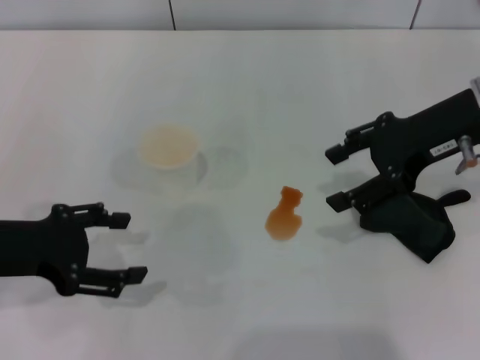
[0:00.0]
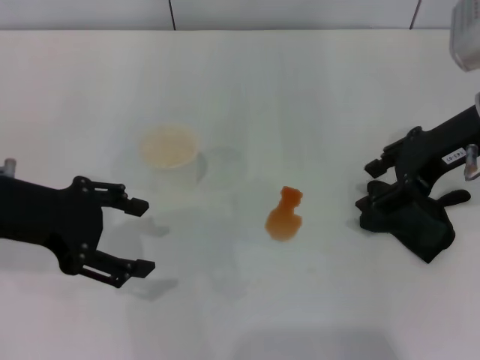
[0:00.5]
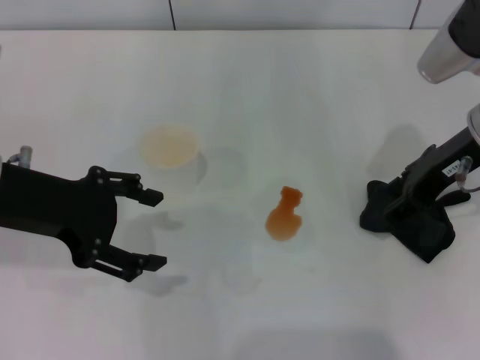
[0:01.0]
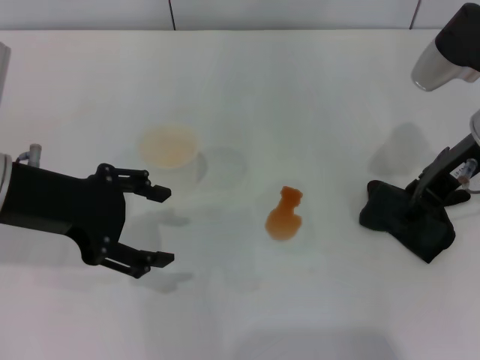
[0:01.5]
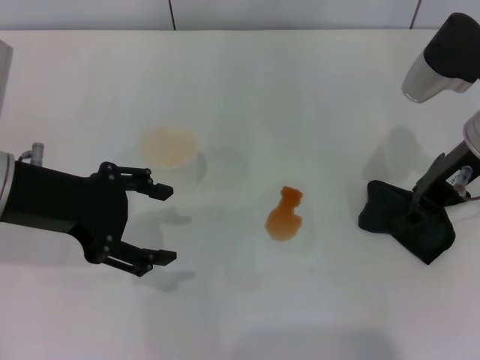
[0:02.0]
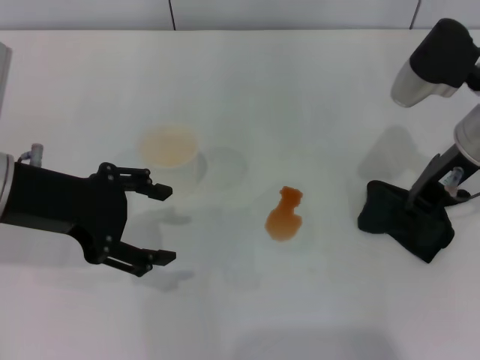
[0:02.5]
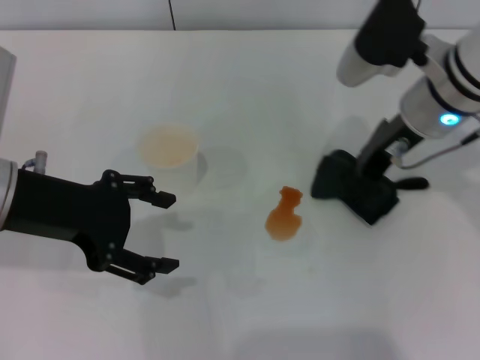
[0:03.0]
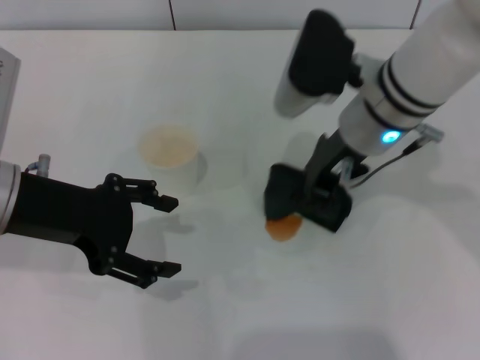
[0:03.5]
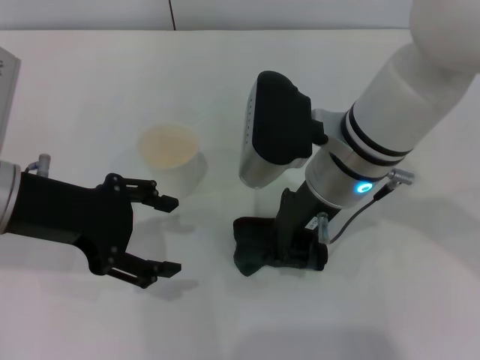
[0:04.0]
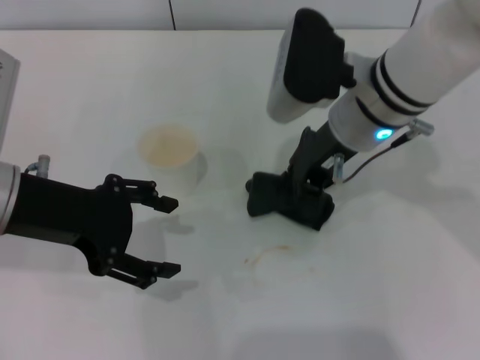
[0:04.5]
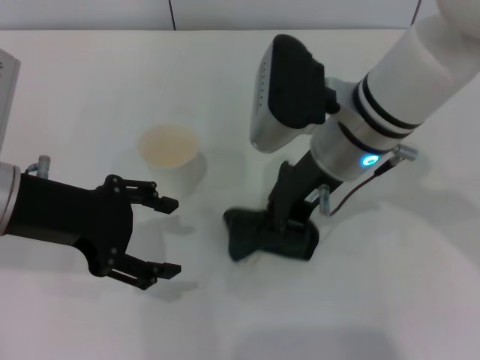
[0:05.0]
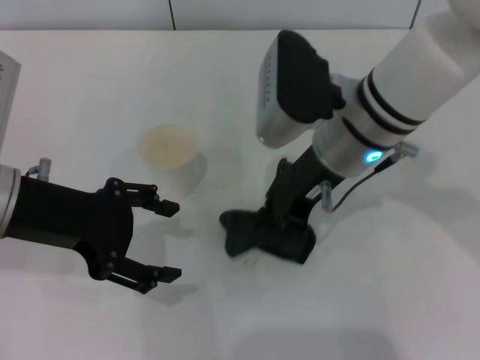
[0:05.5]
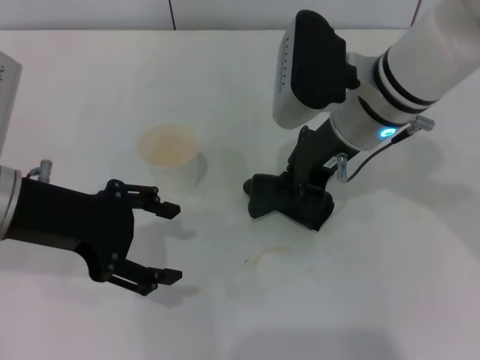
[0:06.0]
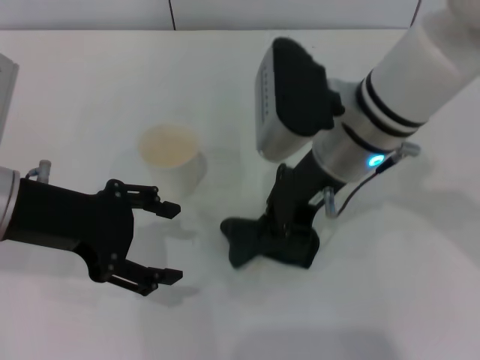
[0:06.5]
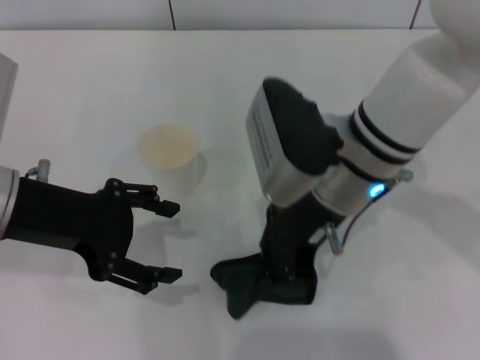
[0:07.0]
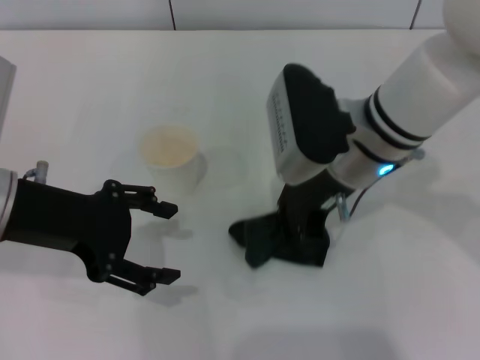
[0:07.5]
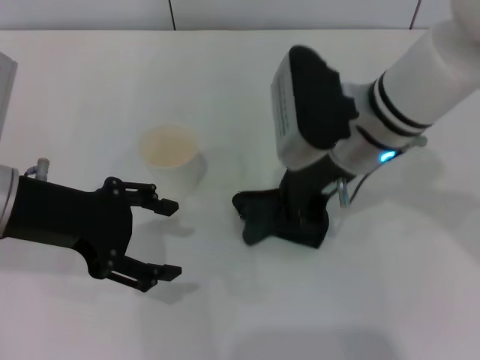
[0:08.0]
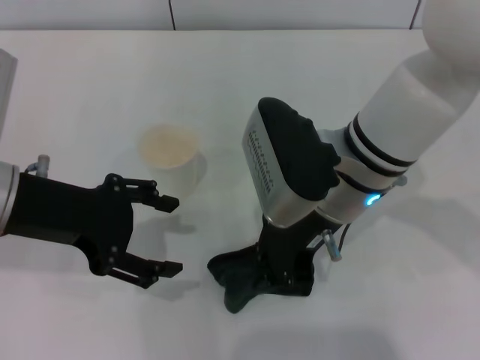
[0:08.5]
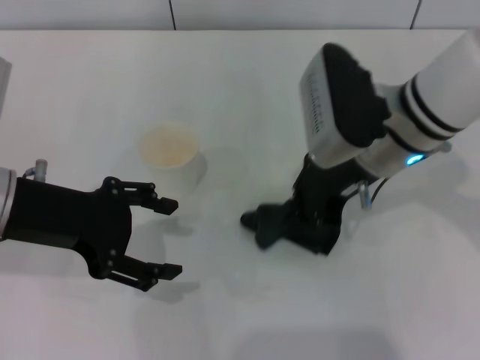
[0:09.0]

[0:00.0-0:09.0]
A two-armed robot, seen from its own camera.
Step, 0:00.0 to 0:02.0: Grasp the rag with the right gripper.
0:00.0 to 0:02.0: The right gripper closes, while the left gripper ends up roughly 10 cm from where it was.
0:02.0 to 0:04.5: The right gripper moves to the left, about 10 cm, and closes.
0:04.5 to 0:07.0: The right gripper moves approximately 5 cm.
0:07.0 to 0:09.0: The right gripper changes place by approximately 5 cm.

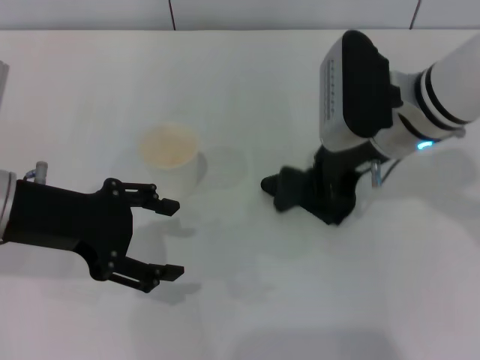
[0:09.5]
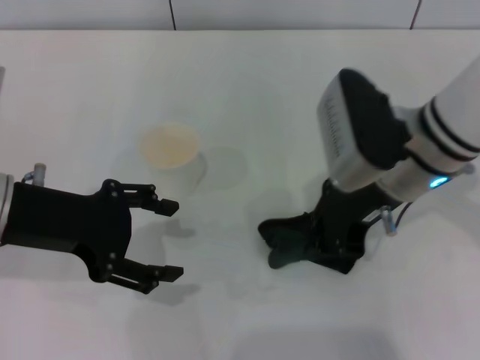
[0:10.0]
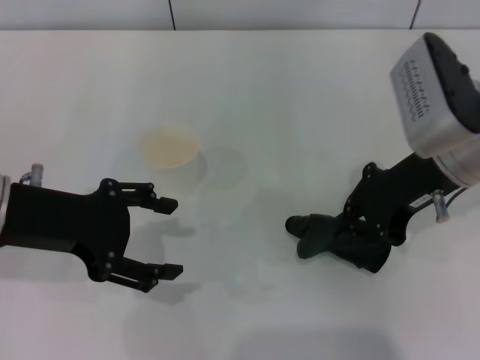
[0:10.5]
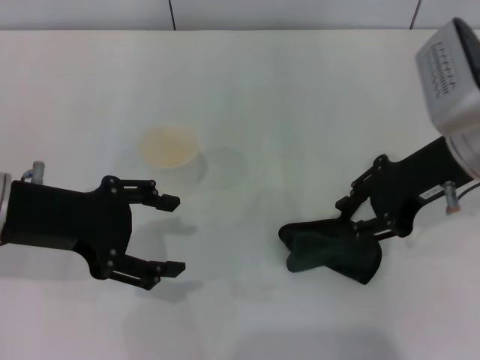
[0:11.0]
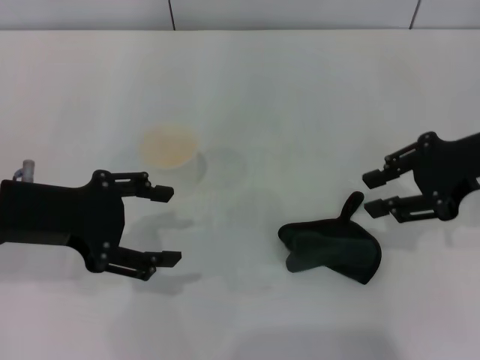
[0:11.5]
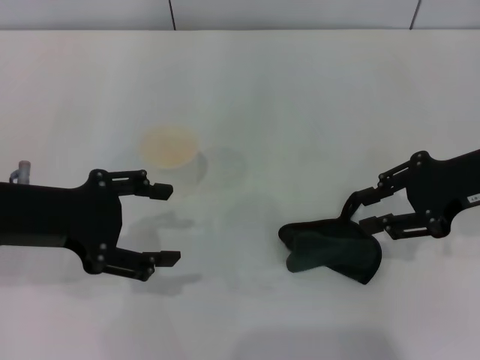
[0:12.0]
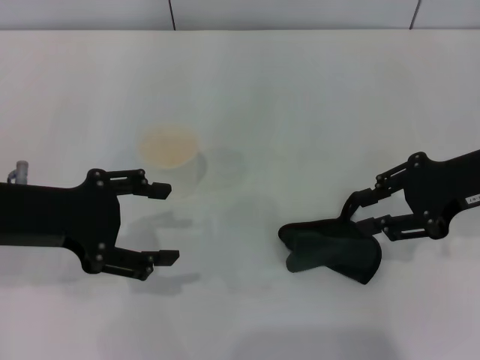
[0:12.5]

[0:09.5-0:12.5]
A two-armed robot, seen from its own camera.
Step, 0:10.5 to 0:11.0: Place the rag on the table with the right gripper.
0:09.5 to 0:11.0: The right gripper is displaced to the right by about 5 cm.
0:11.0 to 0:12.5: The right gripper heads to the right, covering some 5 cm.

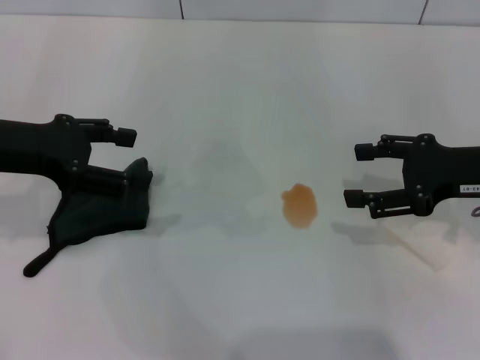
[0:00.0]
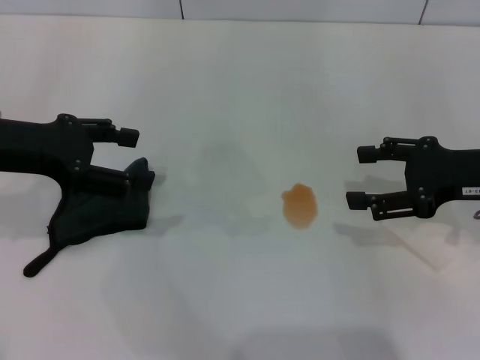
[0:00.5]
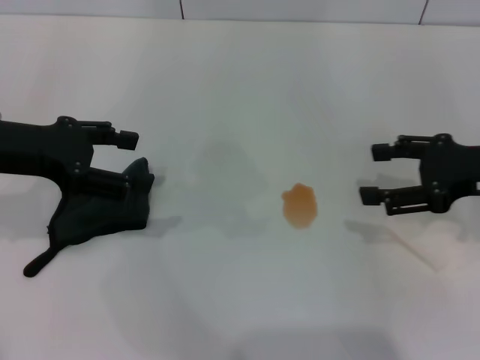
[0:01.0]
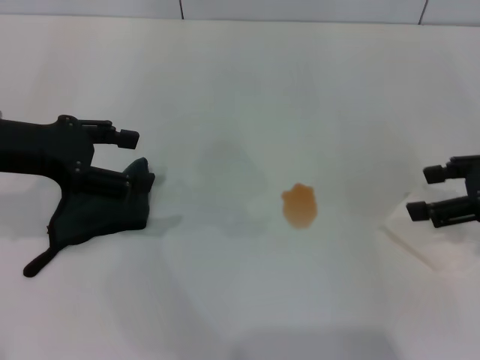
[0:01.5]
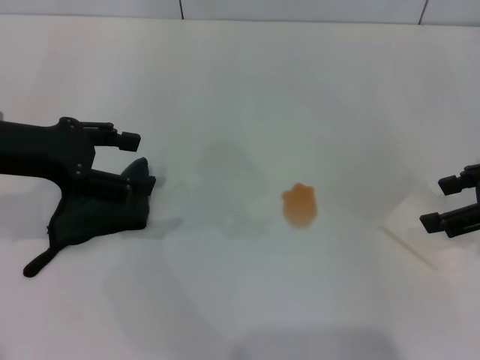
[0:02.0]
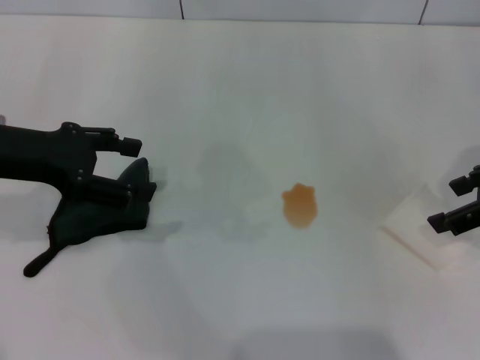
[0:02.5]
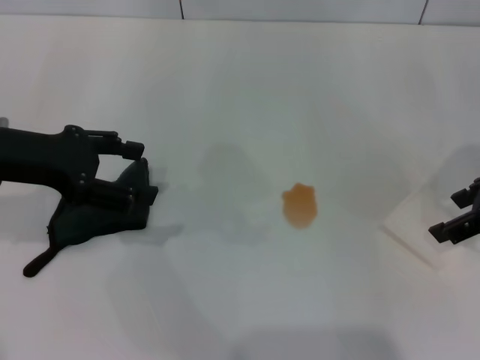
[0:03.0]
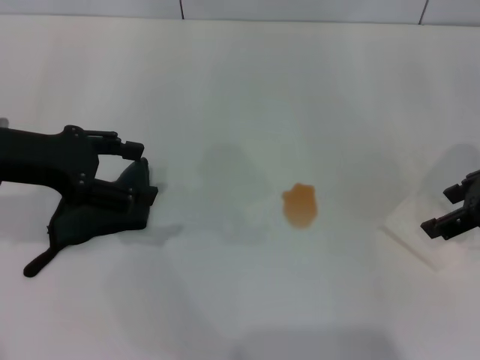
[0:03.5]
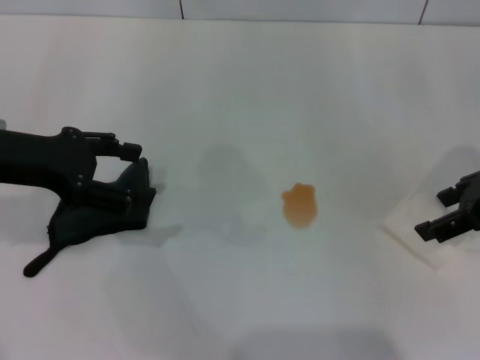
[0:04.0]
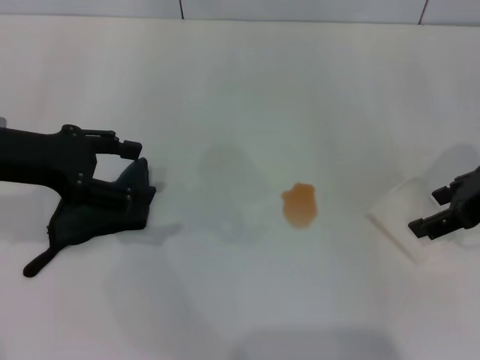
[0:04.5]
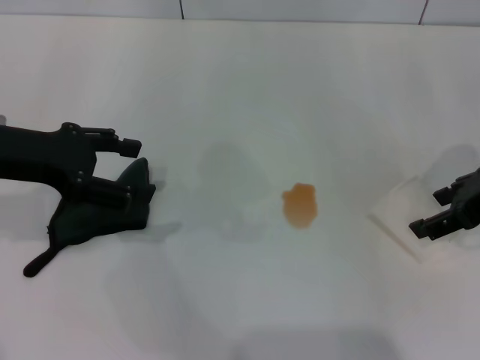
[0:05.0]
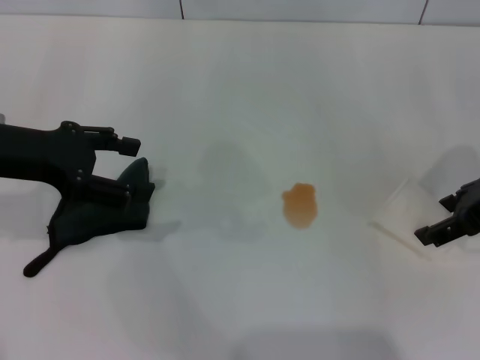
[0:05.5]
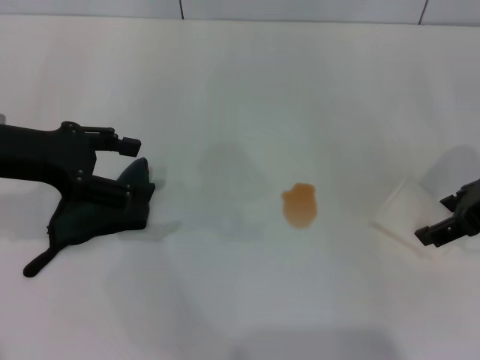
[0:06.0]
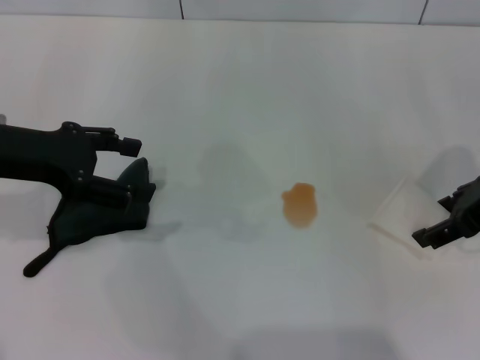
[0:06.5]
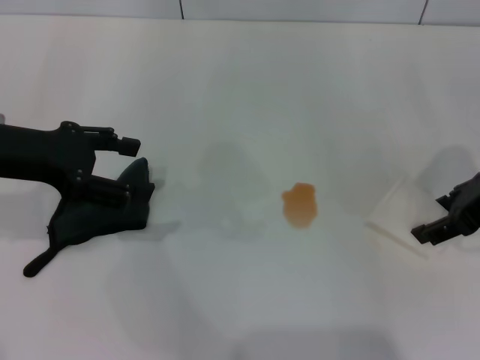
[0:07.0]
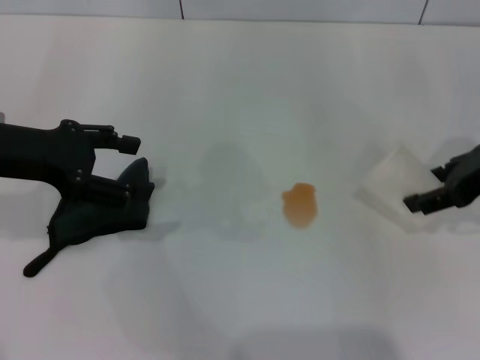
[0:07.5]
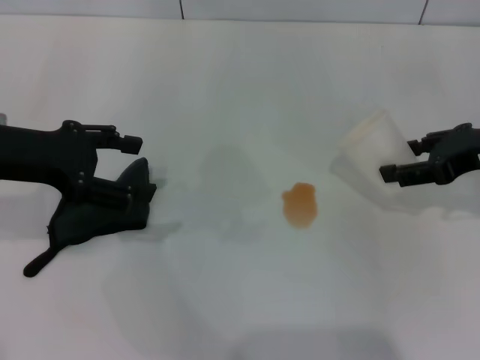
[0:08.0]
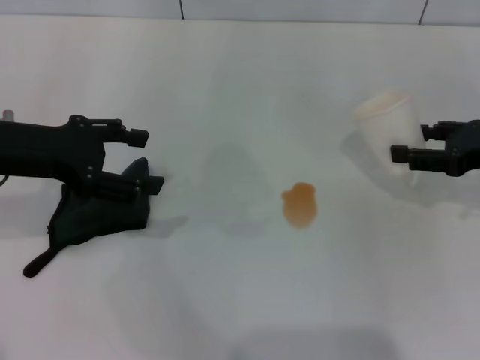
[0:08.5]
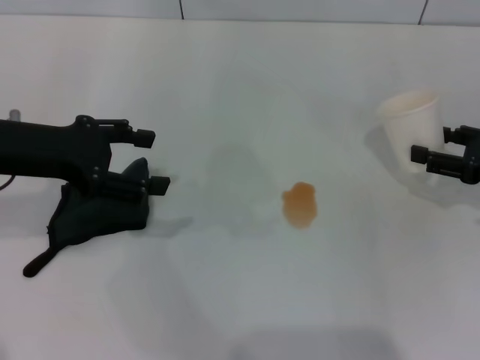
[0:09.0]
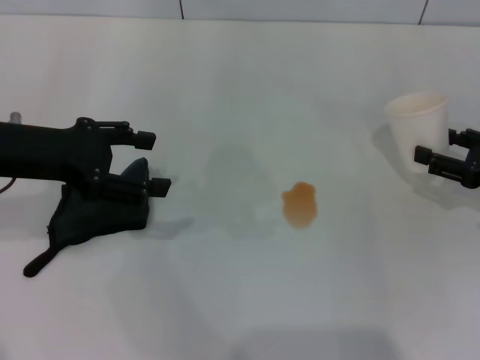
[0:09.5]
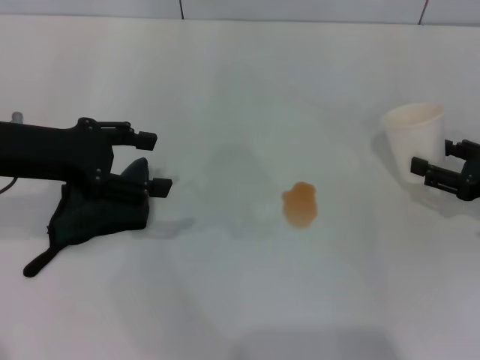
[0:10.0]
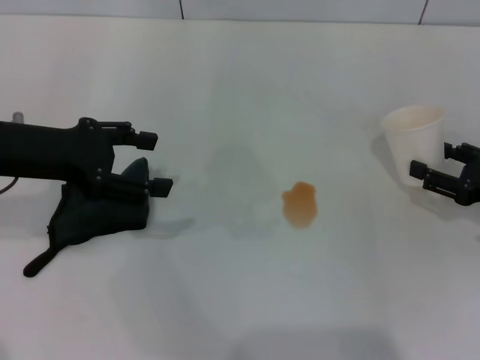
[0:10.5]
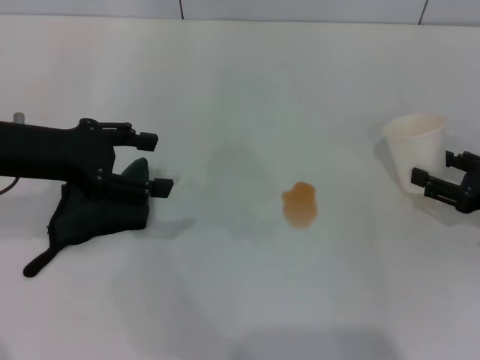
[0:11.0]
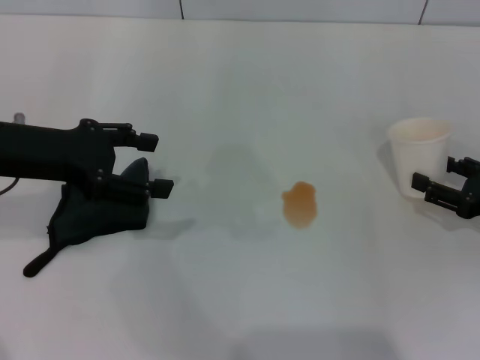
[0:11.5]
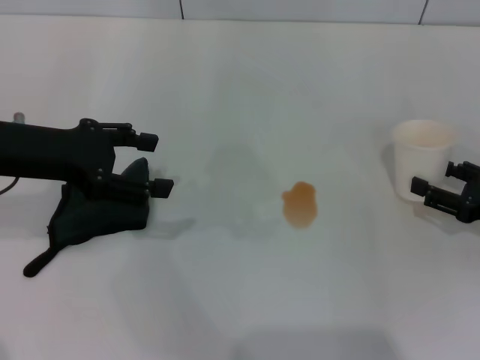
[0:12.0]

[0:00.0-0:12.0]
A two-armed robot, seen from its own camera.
Step, 0:00.0 to 0:07.0: Grasp the paper cup with the right gripper.
0:00.0 to 0:02.0: The right gripper goes roughly 5 cm upward.
0:02.0 to 0:06.0: The grippers move only a little.
0:06.0 to 0:08.0: The right gripper closes.
0:08.0 to 0:10.0: The right gripper heads downward and to the right, covering approximately 10 cm.
0:10.0 to 0:12.0: The grippers stay close to where they were, moving slightly.

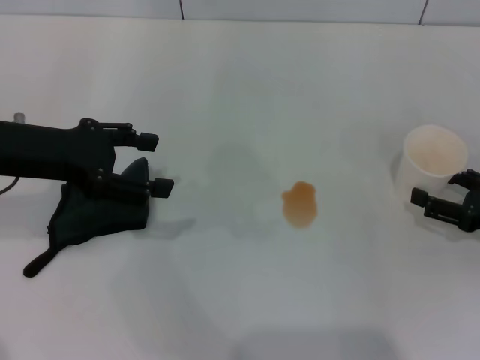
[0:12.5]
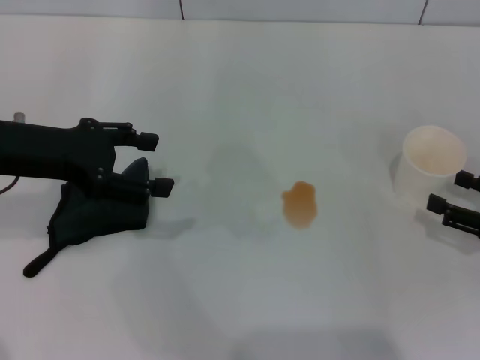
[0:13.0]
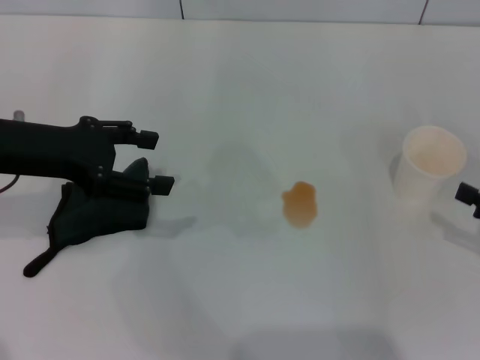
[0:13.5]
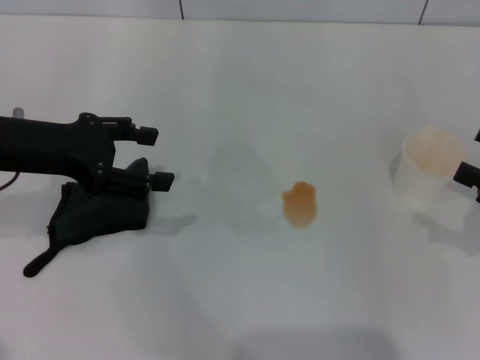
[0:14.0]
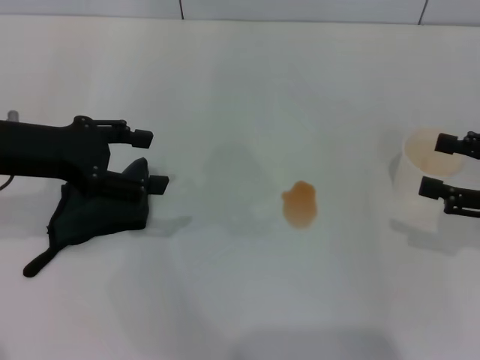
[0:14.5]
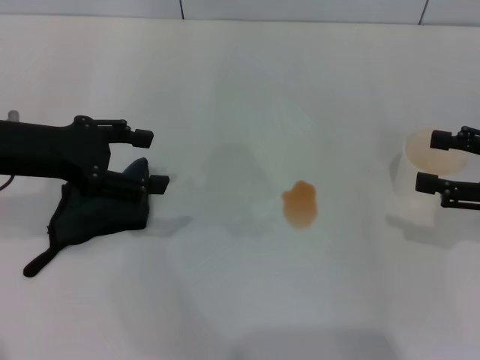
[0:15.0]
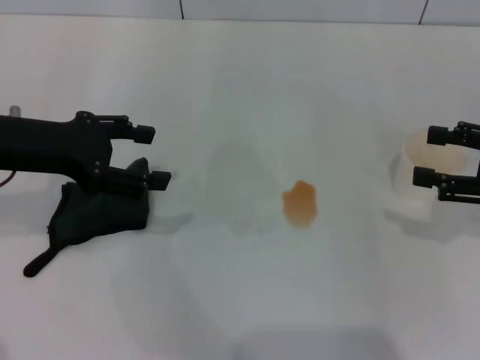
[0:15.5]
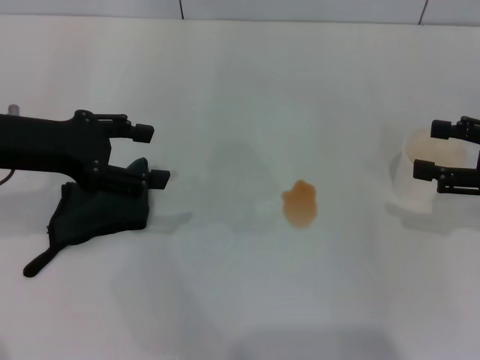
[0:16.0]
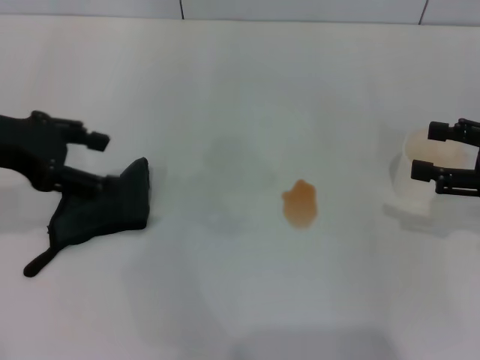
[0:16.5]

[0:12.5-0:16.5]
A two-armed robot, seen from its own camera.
0:12.5 to 0:14.5: The right gripper is displaced upward by about 10 cm.
0:14.5 to 0:16.5: There are only small adjustments of the grippers.
